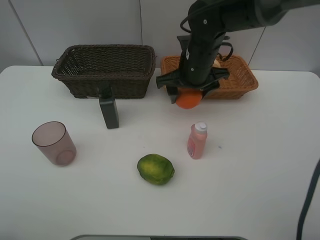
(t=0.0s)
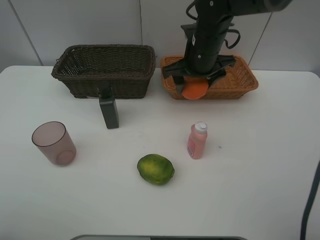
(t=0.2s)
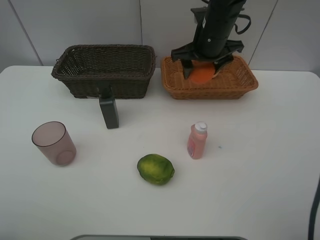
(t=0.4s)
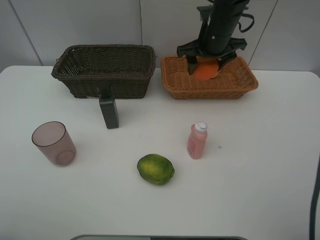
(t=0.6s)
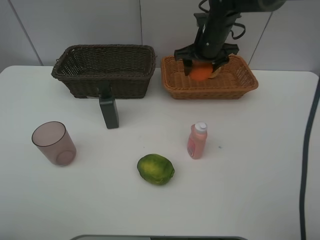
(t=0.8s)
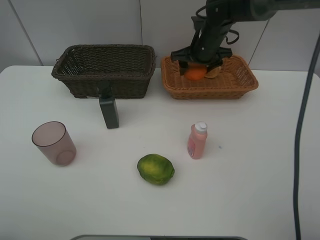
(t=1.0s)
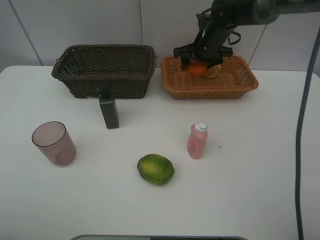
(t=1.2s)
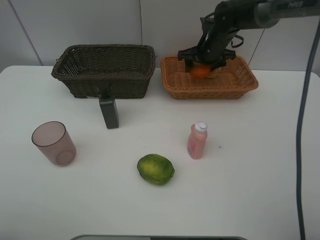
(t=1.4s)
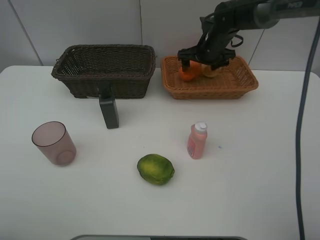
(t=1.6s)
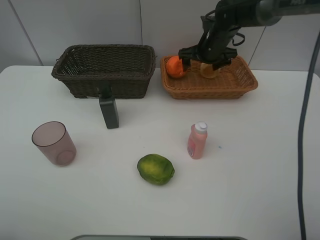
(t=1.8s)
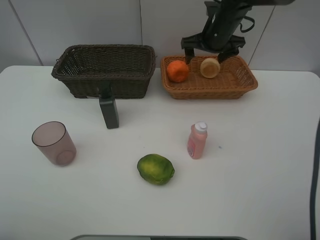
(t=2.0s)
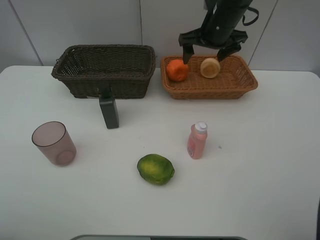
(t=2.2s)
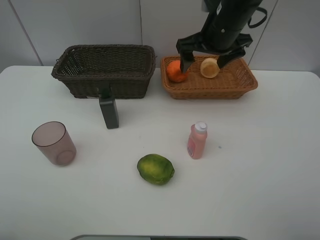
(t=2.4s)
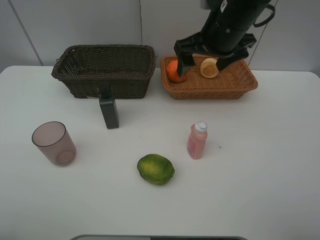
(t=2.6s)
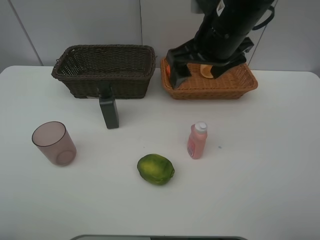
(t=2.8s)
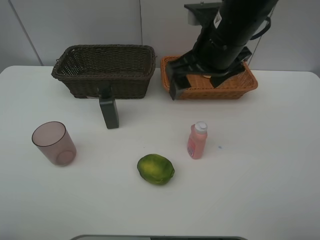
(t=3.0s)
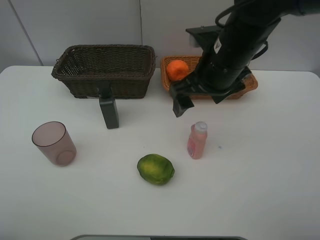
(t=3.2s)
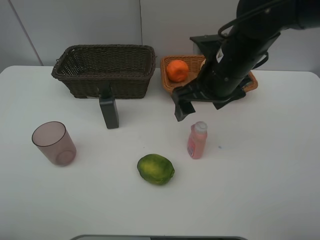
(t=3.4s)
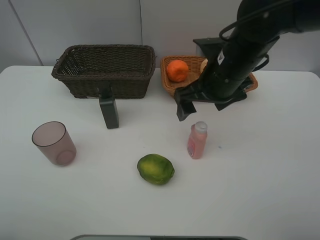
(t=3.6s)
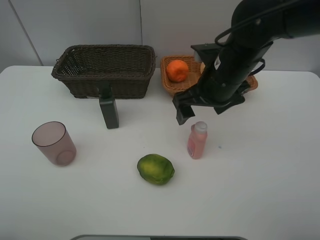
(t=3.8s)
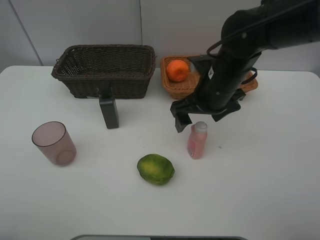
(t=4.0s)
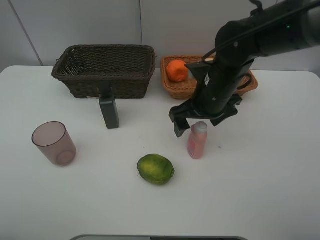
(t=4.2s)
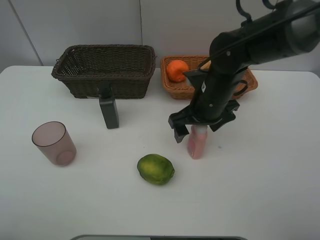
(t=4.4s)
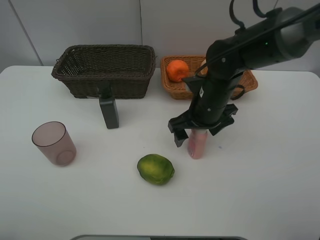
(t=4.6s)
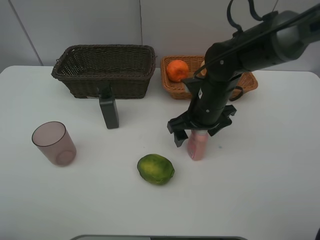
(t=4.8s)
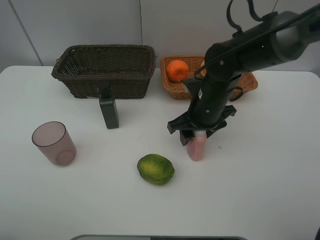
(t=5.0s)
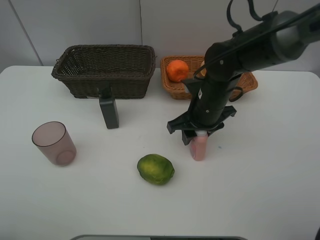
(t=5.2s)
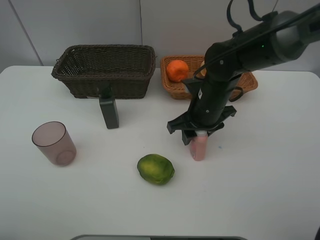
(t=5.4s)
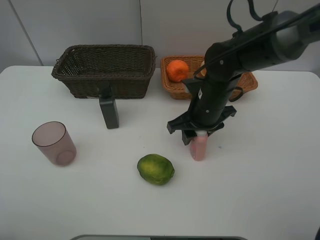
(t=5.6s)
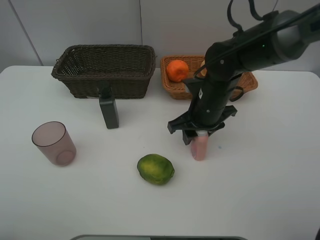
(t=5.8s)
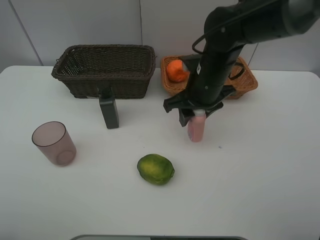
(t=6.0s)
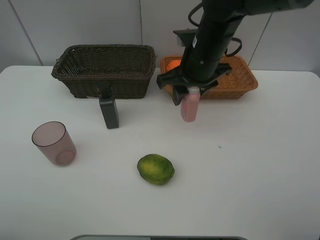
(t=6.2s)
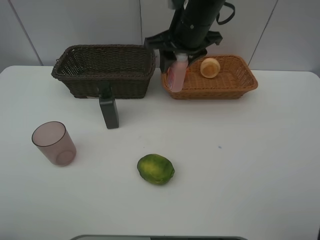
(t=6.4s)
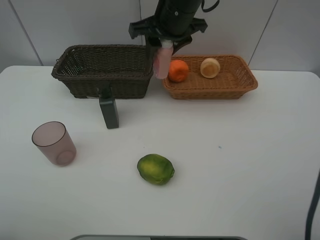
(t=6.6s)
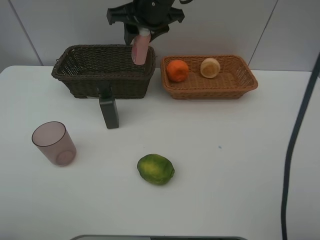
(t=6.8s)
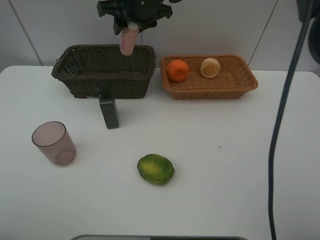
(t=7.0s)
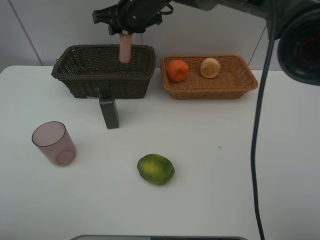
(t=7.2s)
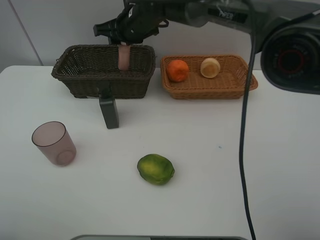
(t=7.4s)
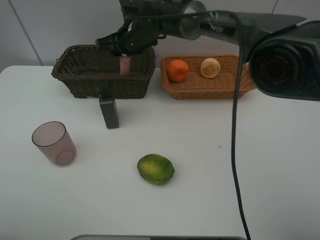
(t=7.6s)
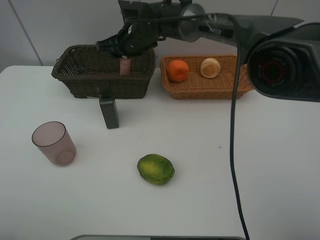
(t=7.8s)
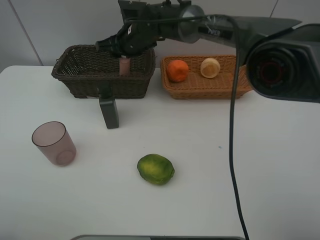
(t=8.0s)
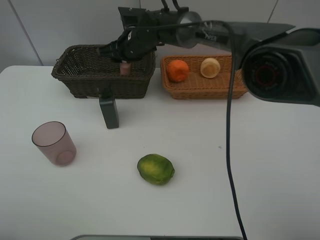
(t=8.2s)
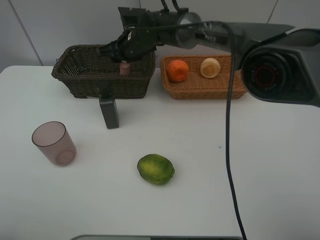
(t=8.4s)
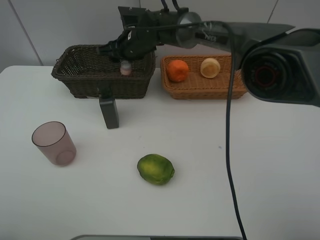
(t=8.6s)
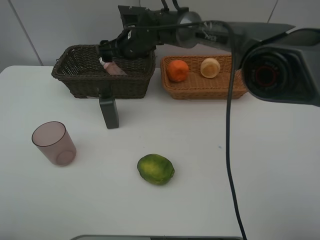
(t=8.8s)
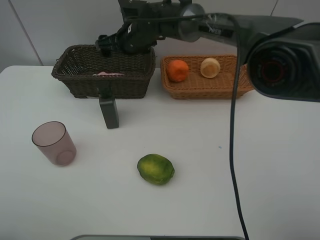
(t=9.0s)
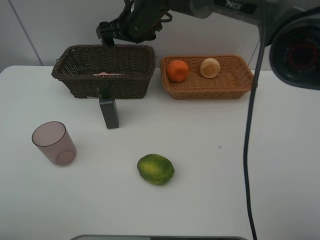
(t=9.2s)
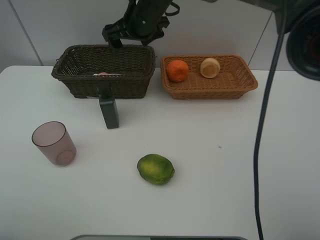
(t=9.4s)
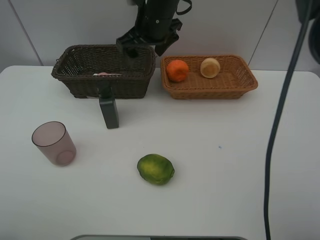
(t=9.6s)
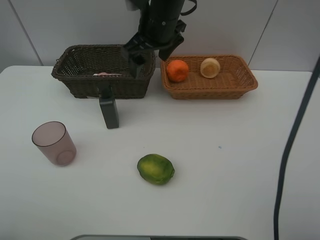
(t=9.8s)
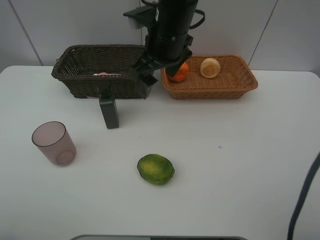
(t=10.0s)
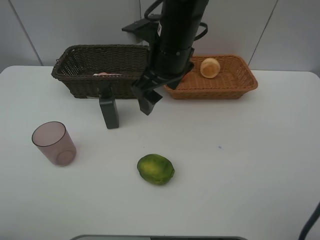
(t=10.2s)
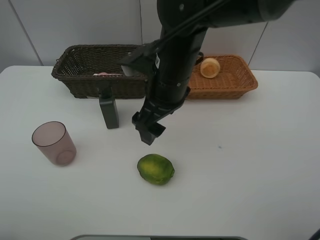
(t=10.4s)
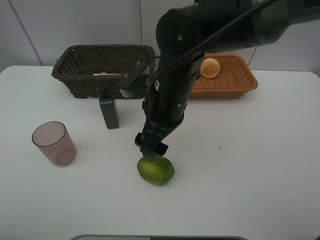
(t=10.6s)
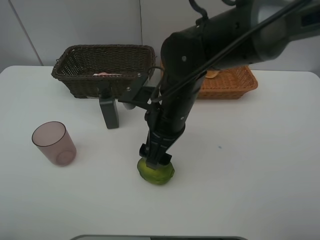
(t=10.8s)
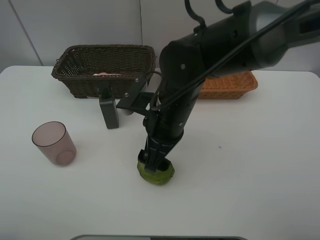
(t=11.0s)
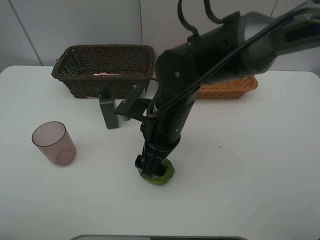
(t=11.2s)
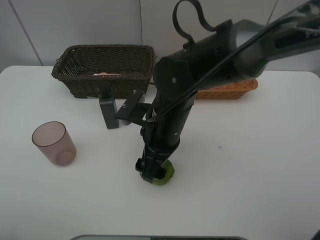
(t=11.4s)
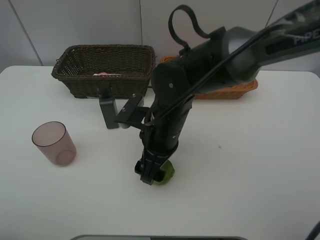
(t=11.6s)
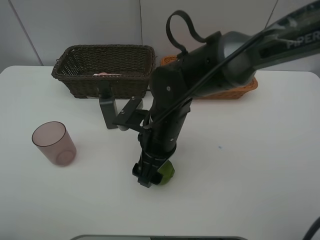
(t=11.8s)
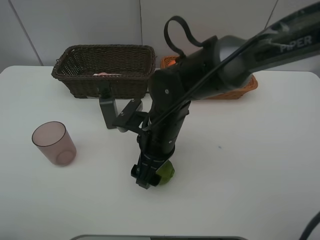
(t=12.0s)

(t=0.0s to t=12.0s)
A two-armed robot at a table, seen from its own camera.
Task of the whole recording: place multiple objects separately in different baskets.
t=0.0s - t=1.6s: The right gripper shifts approximately 15 cm forward and to the right, and opens up.
t=1.6s - t=3.0s: The right gripper moves backward and upward, roughly 20 cm.
t=3.0s - t=4.4s: The right gripper travels downward by some 10 cm.
t=4.4s - t=6.0s: The right gripper moves approximately 5 cm, and closes.
t=6.0s - t=7.6s: The right gripper goes some 20 cm to the left and forward.
t=7.6s - t=9.0s: The right gripper opens its fingers.
t=9.0s - t=10.4s: The right gripper shifts approximately 20 cm backward.
t=10.4s - t=12.0s: The right gripper heads downward, covering roughly 10 cm.

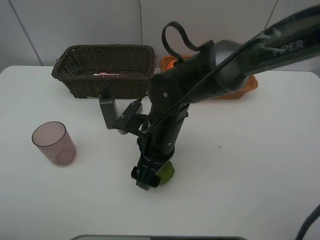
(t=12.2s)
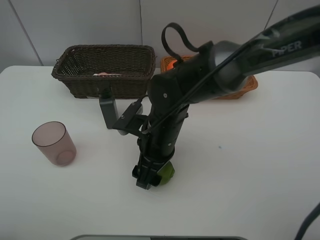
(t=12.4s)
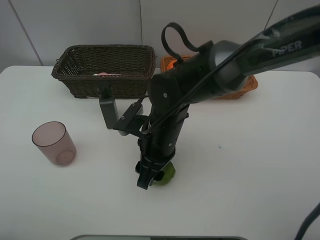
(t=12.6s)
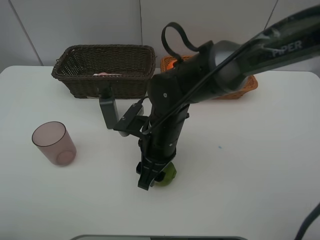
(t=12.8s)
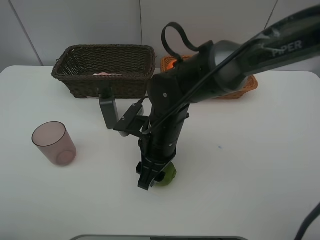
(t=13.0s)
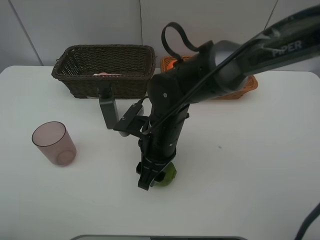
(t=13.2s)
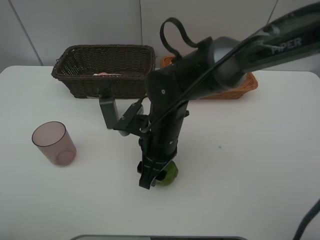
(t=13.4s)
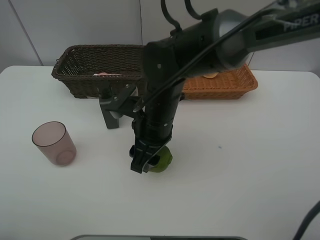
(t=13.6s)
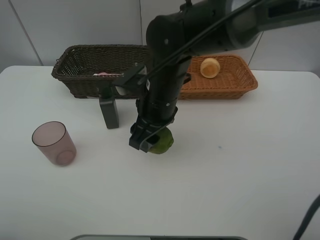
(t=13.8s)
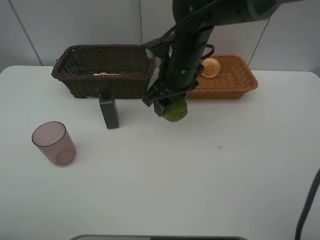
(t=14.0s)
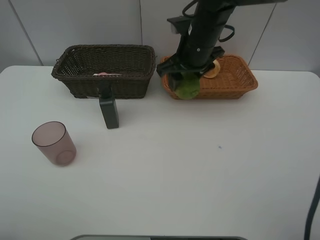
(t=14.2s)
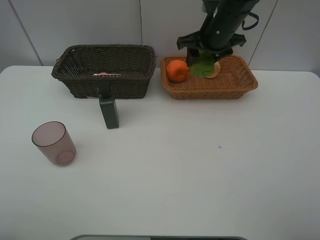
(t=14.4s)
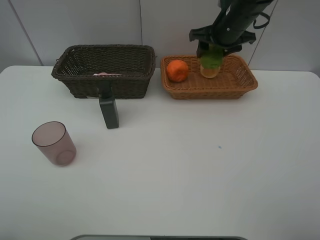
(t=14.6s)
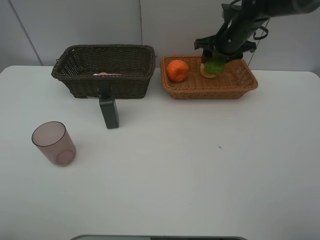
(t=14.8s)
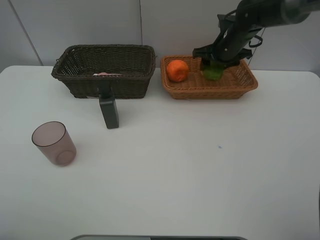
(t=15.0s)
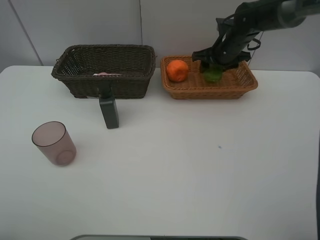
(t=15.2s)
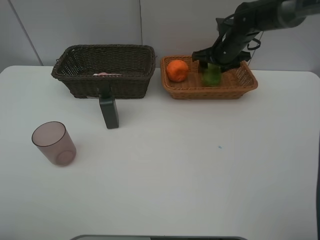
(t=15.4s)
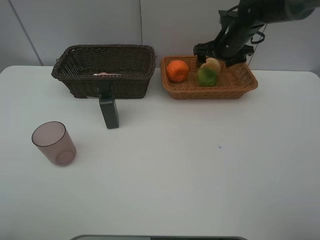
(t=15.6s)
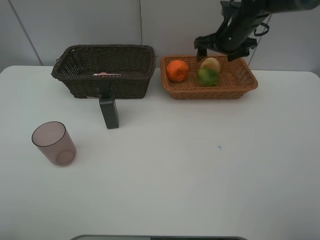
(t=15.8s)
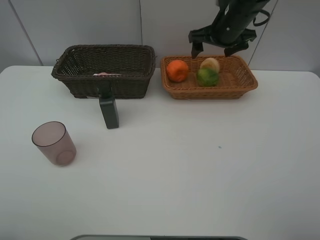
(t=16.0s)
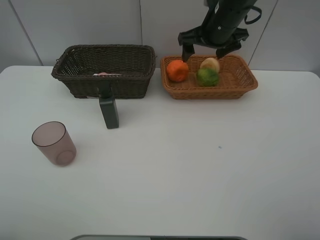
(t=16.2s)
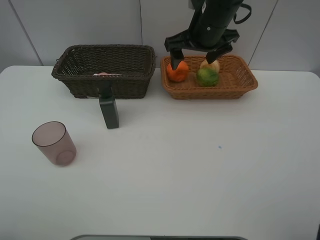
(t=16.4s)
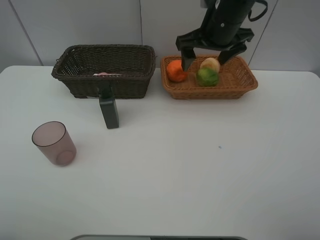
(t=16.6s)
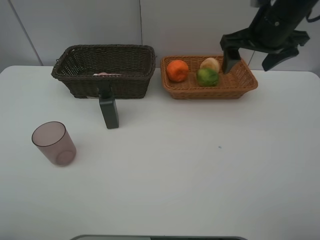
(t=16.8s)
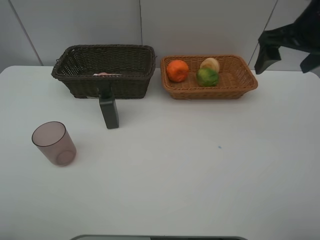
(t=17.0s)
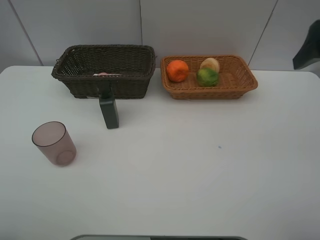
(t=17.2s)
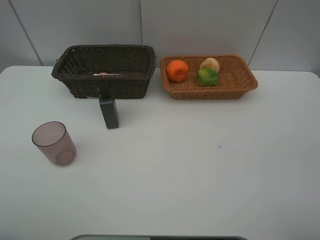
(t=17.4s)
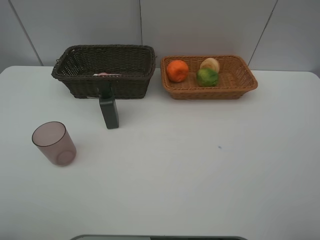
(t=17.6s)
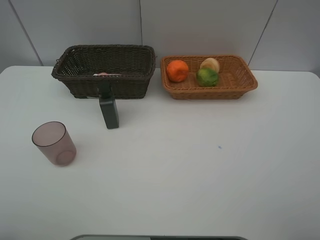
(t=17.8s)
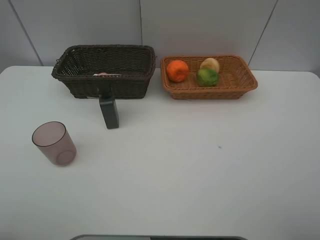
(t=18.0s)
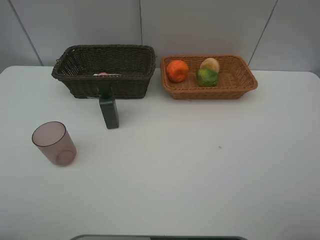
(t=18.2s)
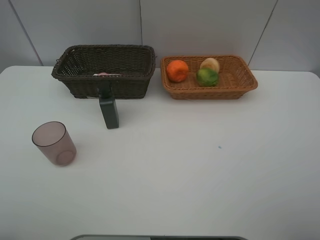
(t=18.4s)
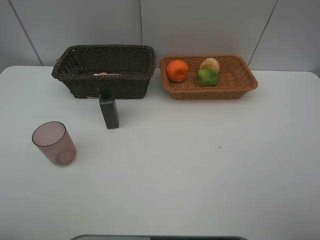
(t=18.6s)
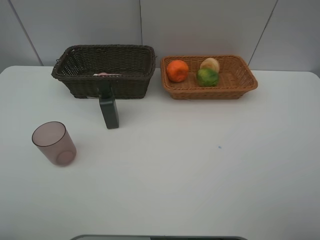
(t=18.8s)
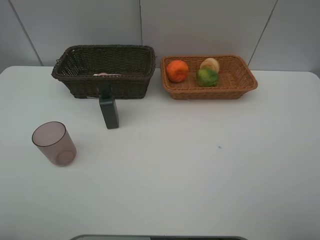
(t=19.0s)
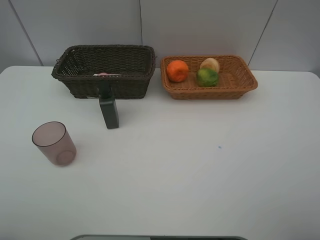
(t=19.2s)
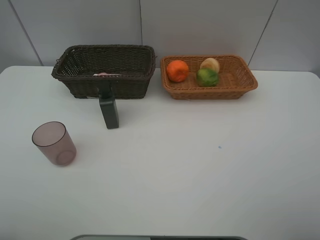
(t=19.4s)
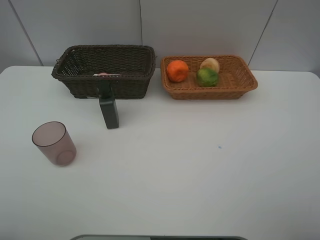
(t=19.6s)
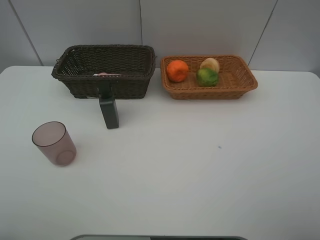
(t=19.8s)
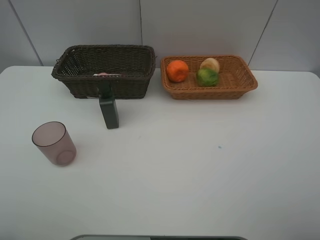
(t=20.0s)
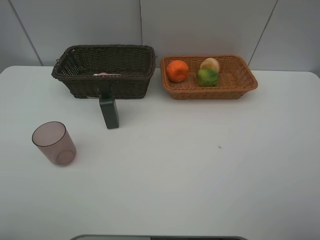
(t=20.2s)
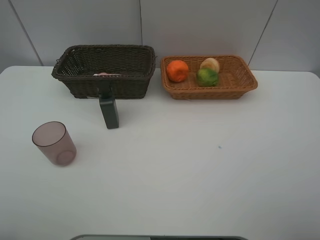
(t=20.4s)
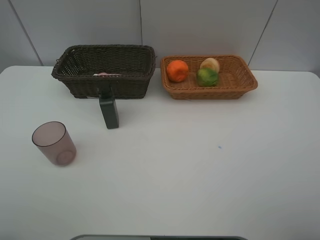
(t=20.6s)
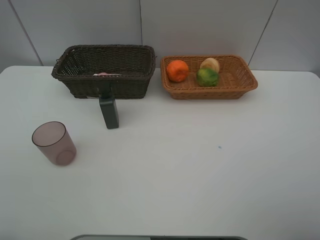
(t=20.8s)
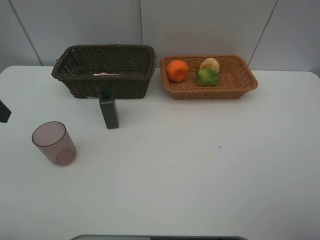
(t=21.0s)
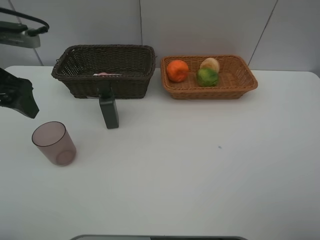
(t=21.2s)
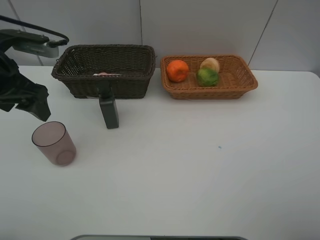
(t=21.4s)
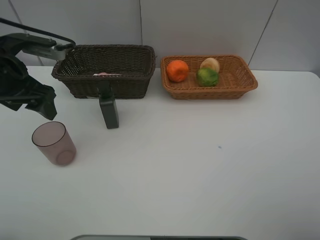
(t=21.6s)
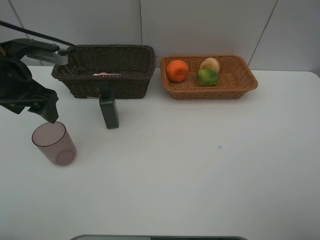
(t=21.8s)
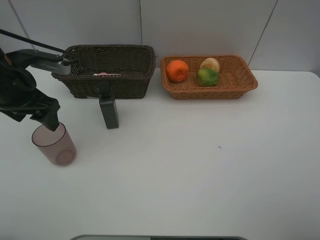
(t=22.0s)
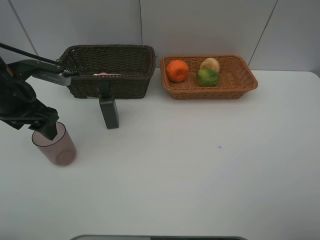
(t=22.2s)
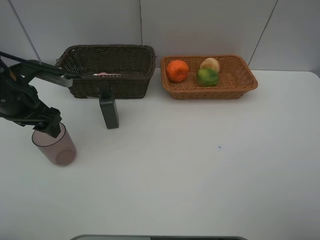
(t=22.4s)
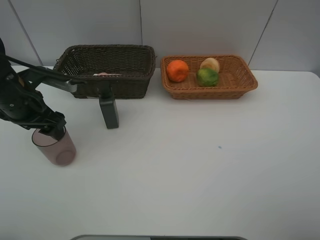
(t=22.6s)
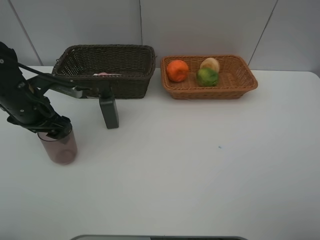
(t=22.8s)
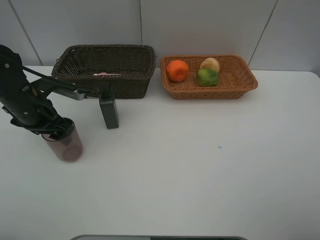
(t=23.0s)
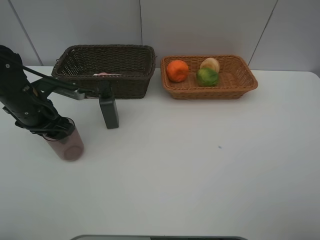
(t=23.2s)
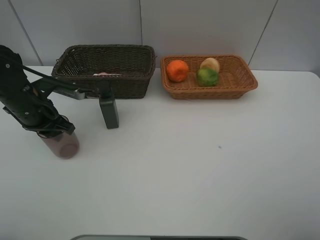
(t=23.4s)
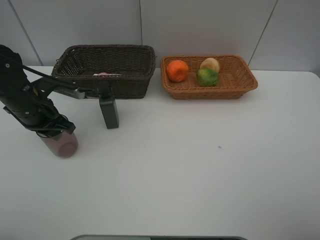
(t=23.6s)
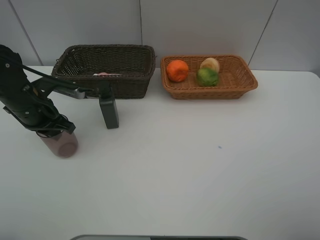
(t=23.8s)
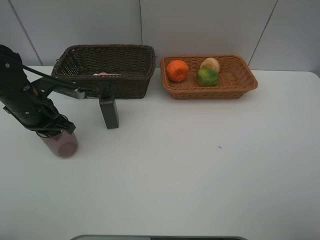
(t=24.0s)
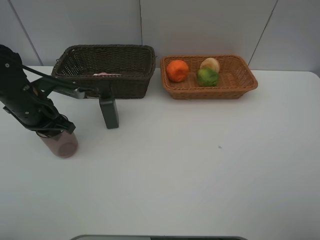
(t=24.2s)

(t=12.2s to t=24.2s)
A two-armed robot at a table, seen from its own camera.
Task of the whole recording: place multiple objects separately in different baskets.
t=12.2s - t=13.8s: The right gripper moves upward, about 5 cm, and closes up.
t=13.8s - t=15.2s: The right gripper heads forward and to the right, covering approximately 25 cm.
t=15.2s - t=16.6s: The right gripper travels upward and backward by roughly 15 cm, and opens up.
t=16.6s - t=18.2s: The right gripper heads backward and to the right, covering approximately 40 cm.
t=19.8s - t=21.2s: The left gripper moves forward, approximately 25 cm.
t=21.2s - t=22.6s: The left gripper shifts approximately 10 cm downward.
t=22.6s - t=24.2s: The left gripper closes up.
